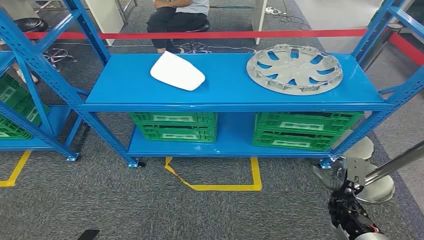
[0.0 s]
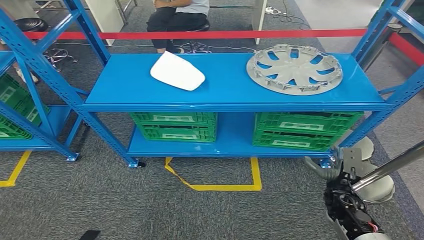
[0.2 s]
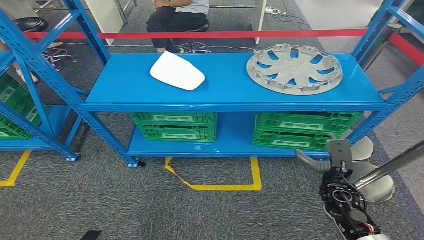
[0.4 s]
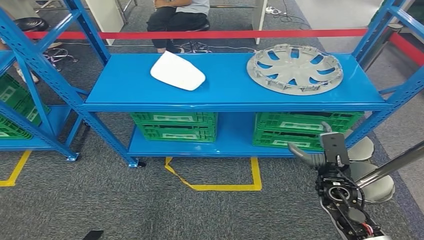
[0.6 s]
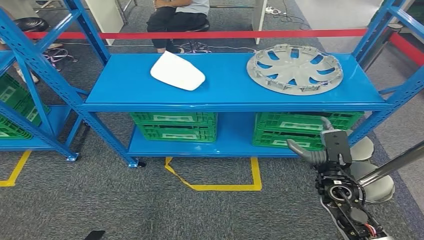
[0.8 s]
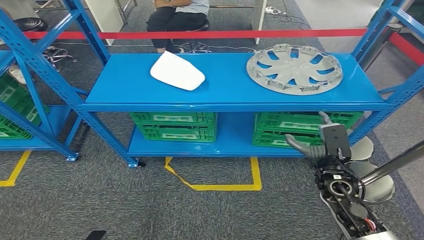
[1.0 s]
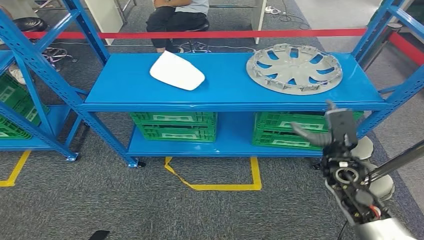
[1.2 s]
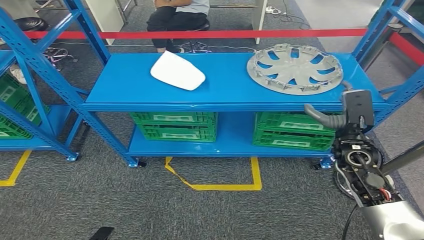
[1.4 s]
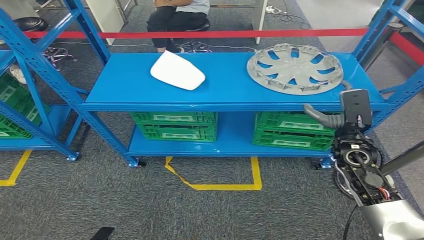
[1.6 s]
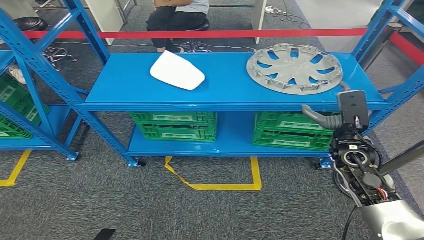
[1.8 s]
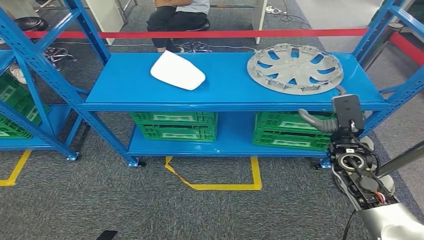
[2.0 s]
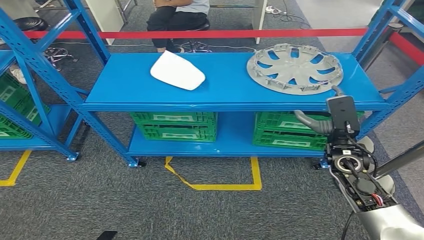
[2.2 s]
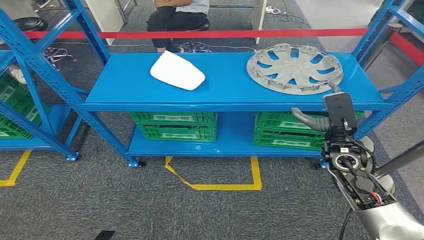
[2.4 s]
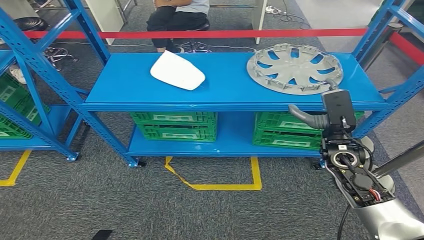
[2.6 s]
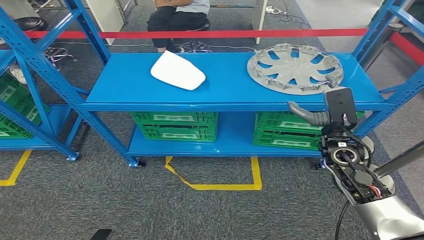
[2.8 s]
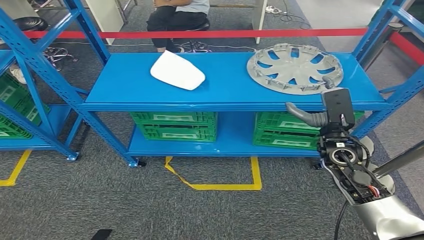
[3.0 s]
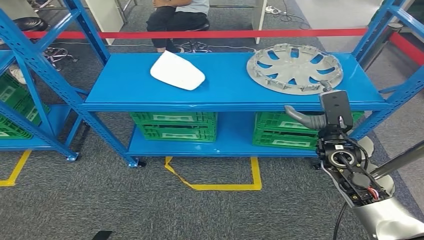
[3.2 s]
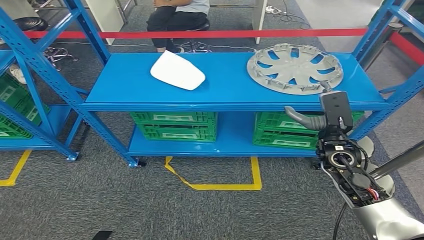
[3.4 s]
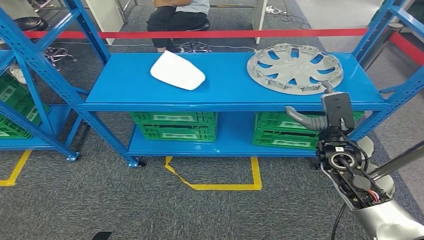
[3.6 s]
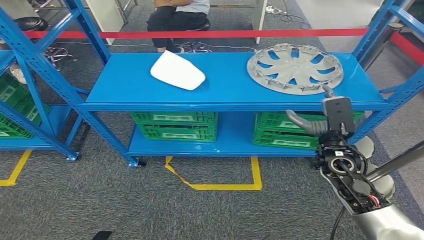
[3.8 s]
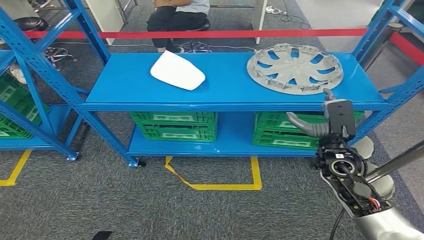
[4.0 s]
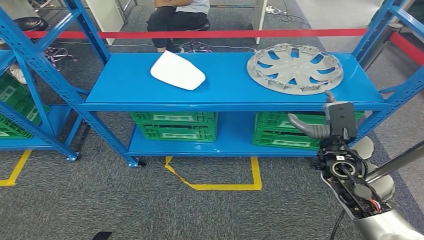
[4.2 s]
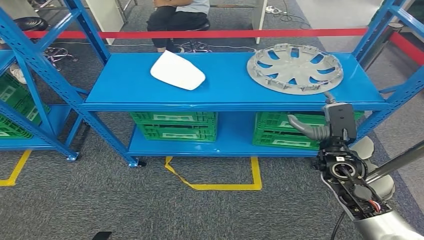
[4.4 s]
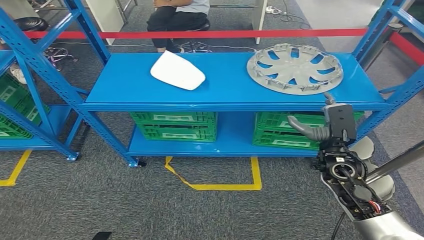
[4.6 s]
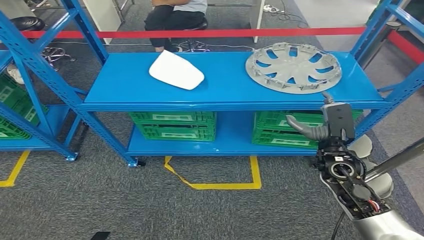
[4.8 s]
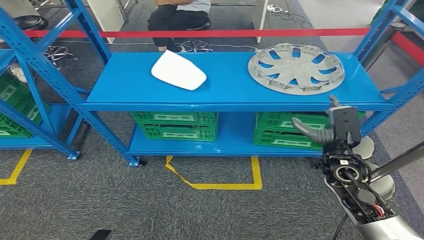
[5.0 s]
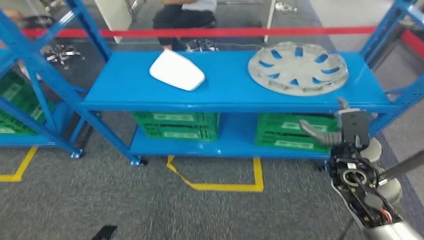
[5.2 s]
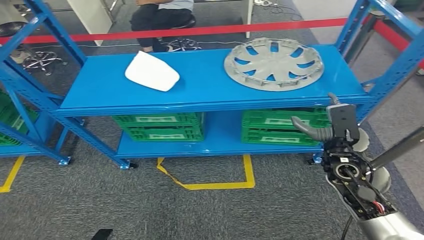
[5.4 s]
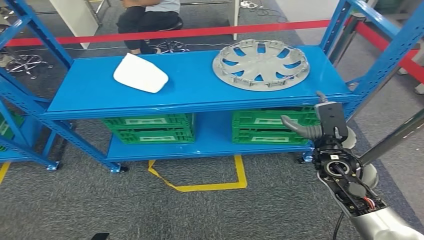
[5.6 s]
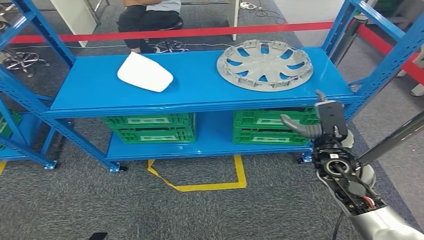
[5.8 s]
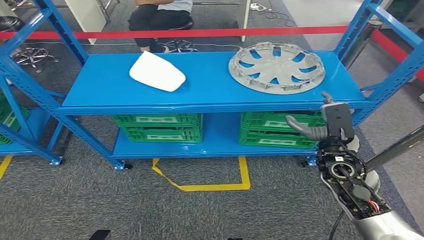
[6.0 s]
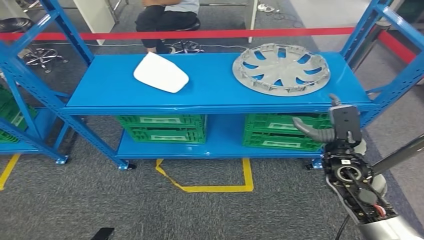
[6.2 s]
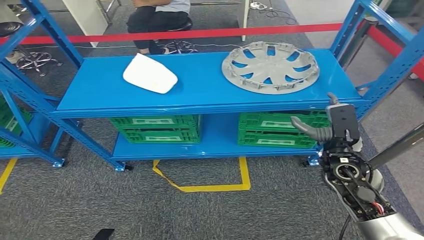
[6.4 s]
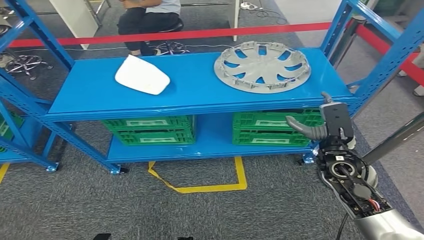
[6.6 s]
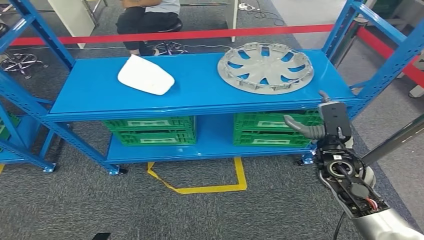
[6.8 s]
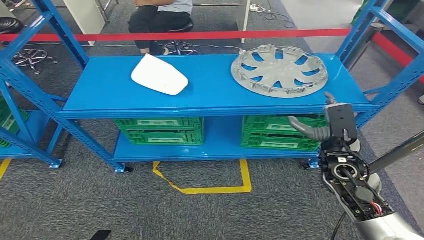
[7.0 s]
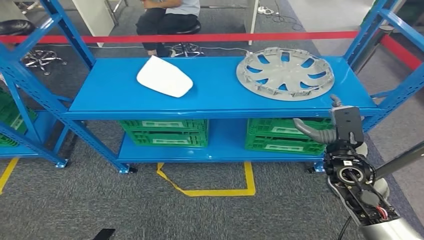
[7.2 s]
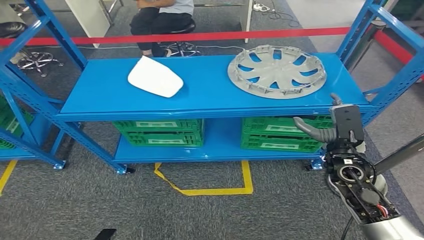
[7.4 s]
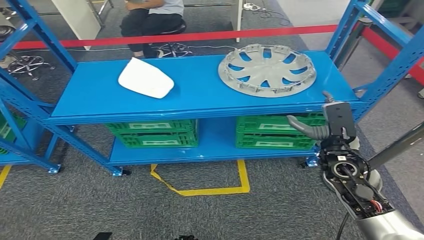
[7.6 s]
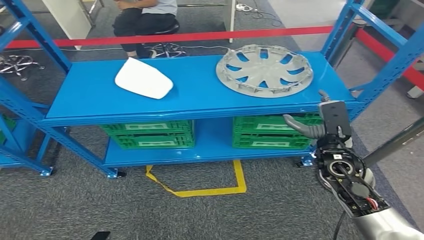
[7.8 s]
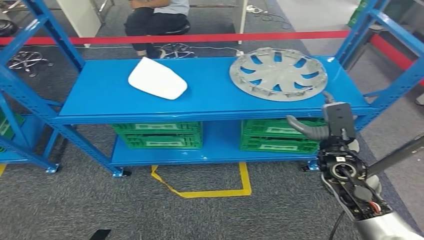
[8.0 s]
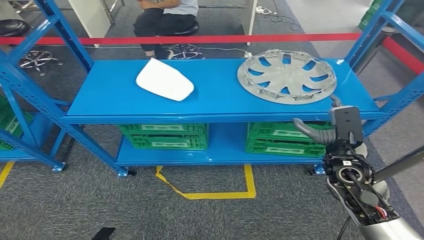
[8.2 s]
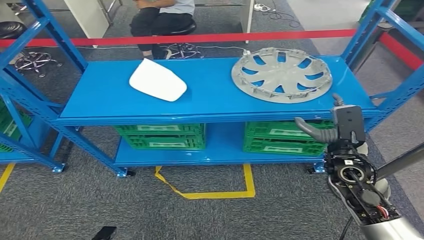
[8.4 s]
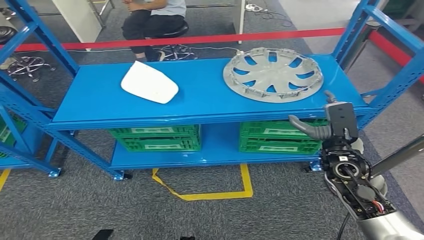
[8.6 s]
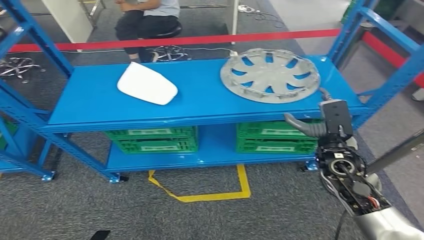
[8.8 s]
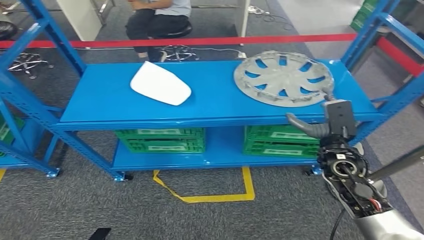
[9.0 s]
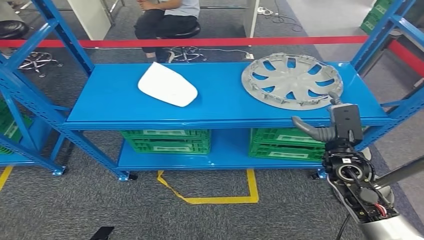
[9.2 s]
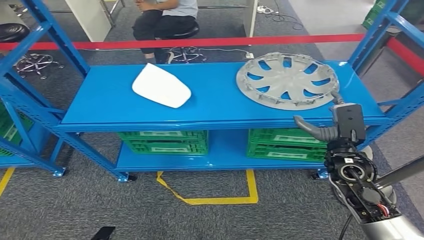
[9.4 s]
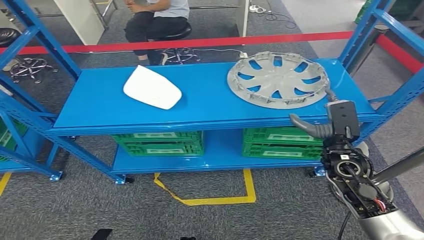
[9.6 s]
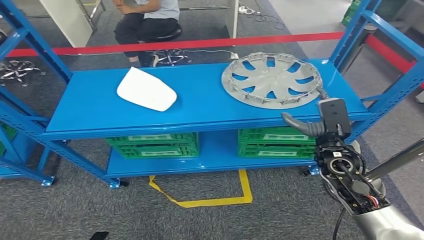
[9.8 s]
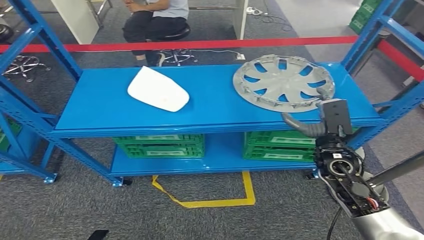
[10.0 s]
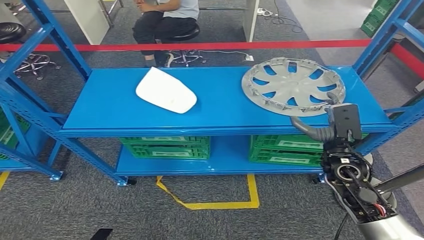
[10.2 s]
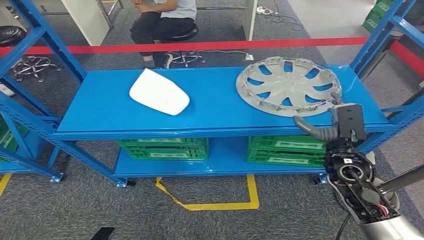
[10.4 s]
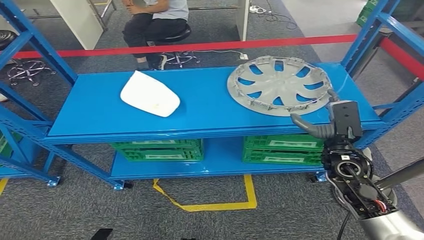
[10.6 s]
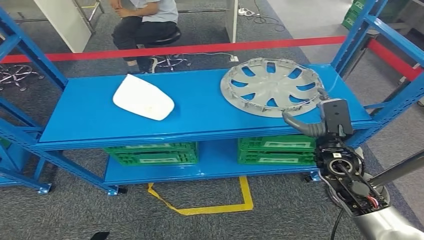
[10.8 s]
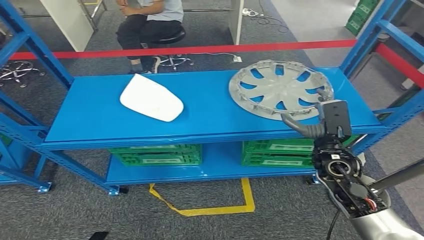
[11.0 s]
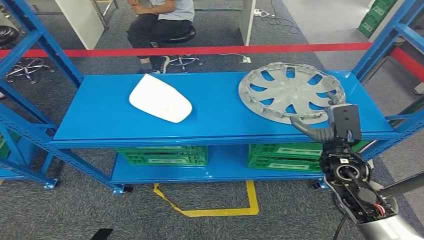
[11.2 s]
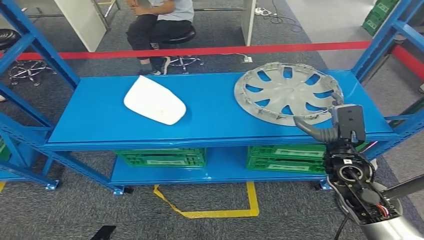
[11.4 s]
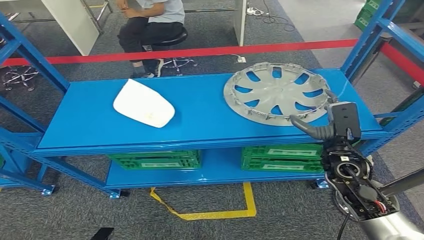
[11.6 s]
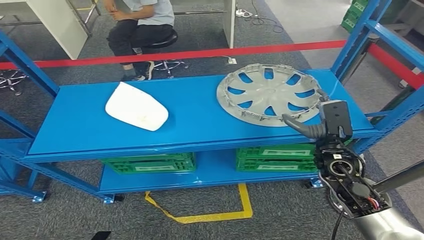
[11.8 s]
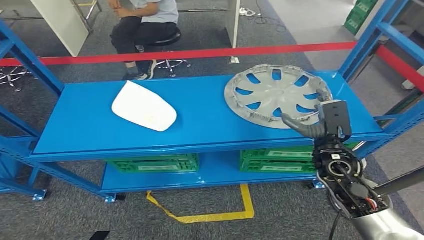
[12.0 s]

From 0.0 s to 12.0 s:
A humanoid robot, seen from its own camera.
From 1.6 s to 4.4 s: The hands make only small movements.

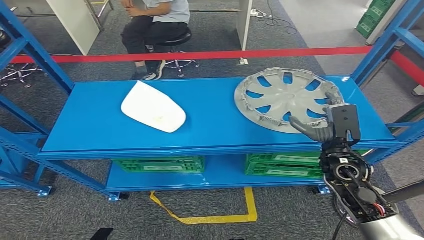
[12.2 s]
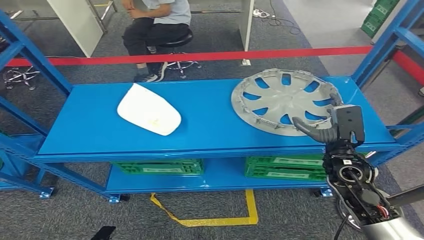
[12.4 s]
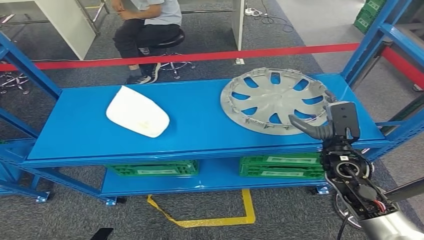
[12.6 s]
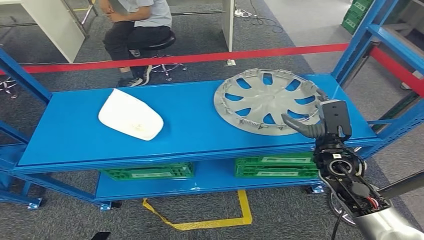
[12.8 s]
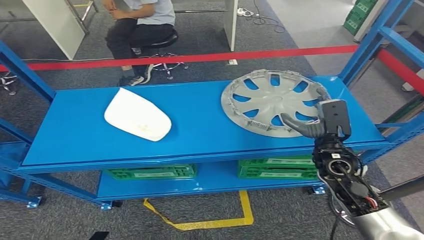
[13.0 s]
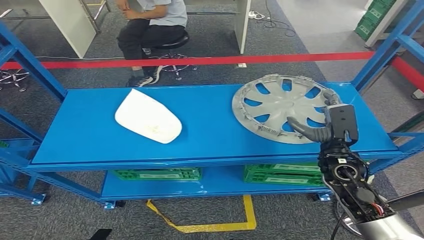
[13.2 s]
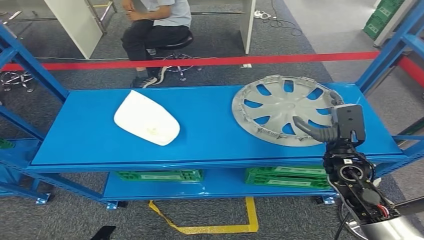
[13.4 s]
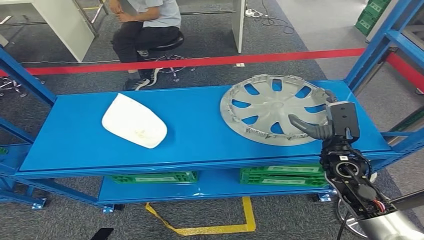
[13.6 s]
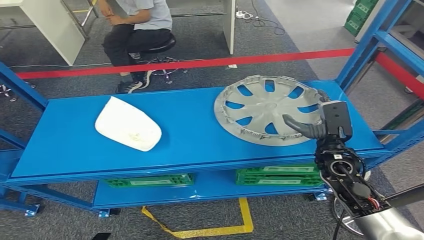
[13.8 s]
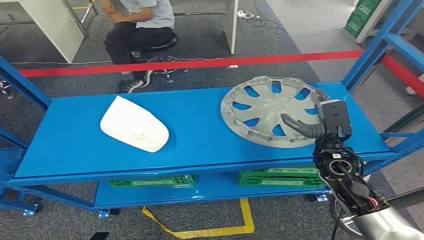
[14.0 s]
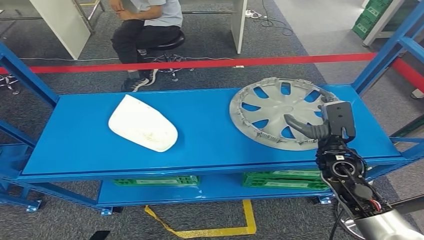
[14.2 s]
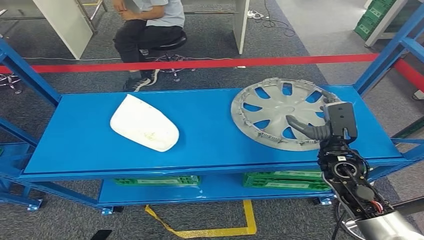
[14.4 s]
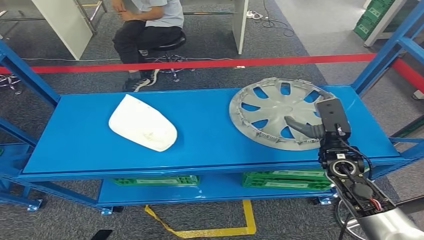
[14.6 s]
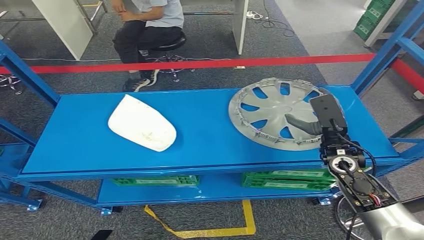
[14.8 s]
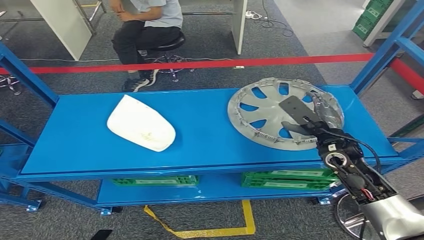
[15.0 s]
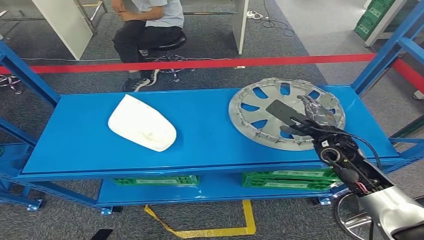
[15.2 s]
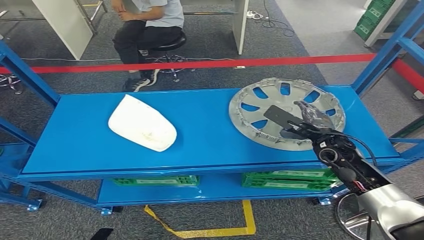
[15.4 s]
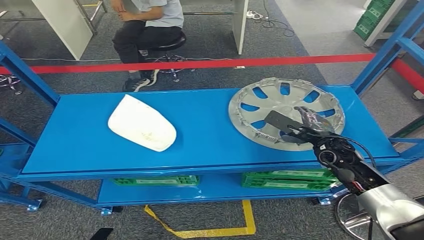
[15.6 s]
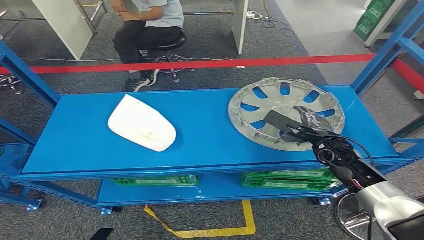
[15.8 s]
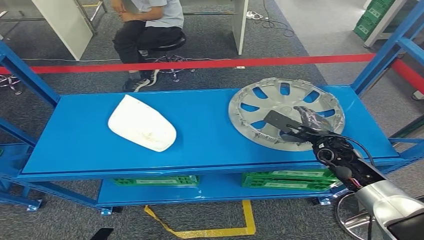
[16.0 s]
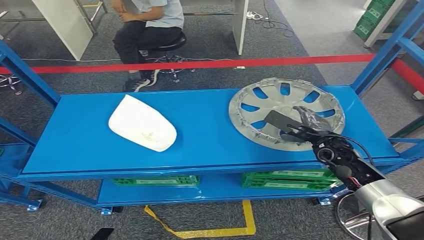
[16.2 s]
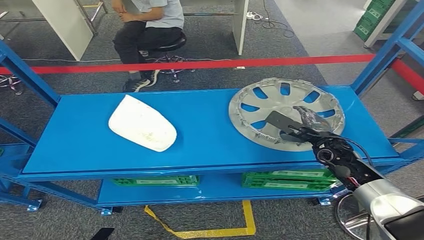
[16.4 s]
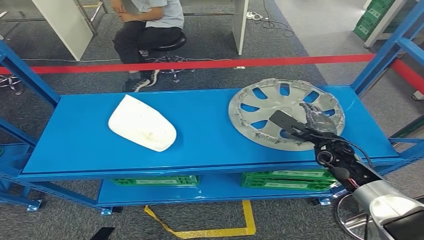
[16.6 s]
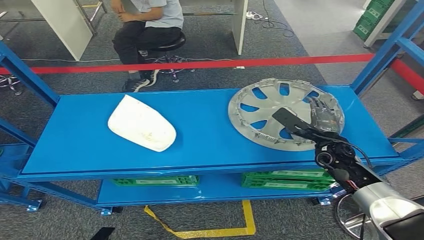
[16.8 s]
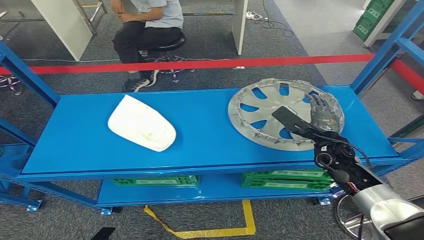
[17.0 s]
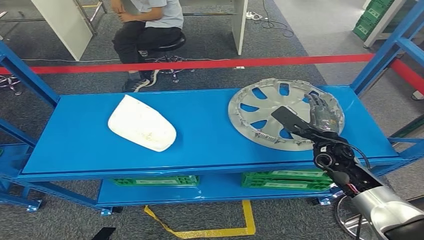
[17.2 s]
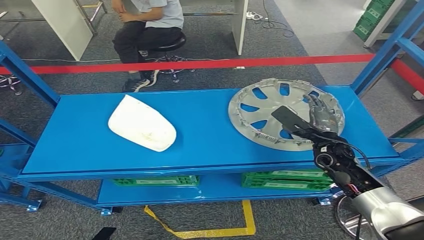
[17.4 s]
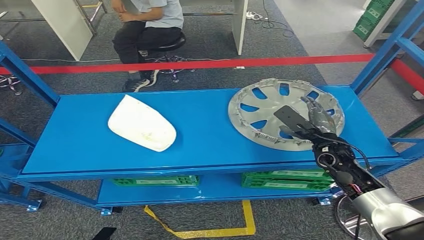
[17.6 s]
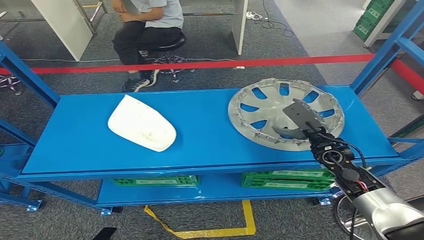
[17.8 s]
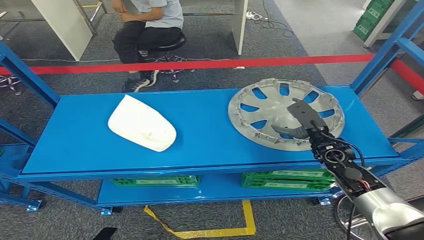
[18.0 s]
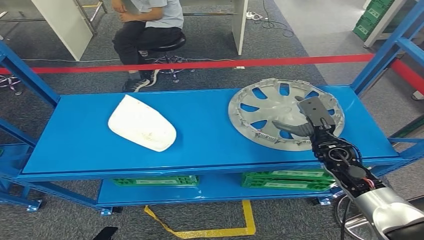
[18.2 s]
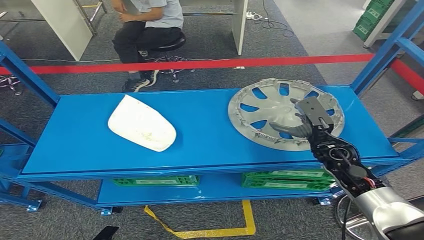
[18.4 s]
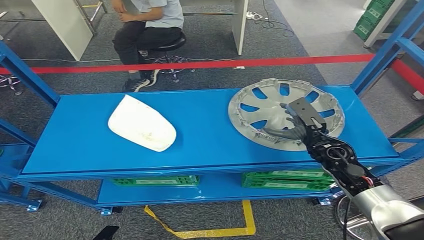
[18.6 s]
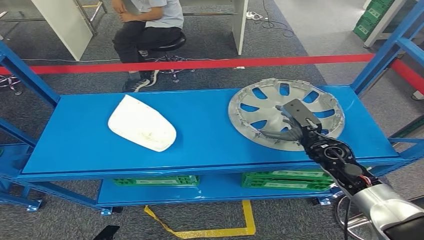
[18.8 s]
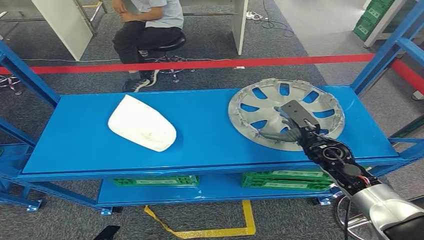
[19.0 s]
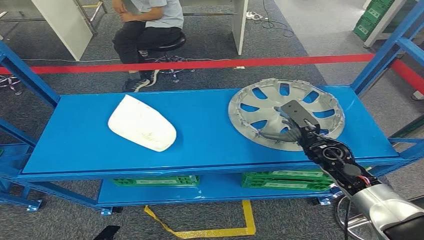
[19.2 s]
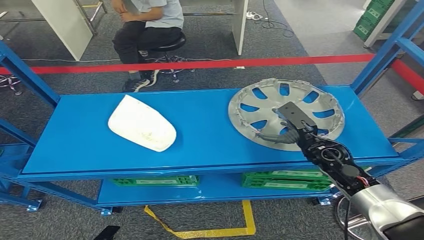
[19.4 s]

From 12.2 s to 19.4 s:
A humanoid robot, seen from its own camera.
From 15.0 s to 16.6 s: The right hand travels downward by approximately 5 cm.
From 18.0 s to 19.4 s: The hands make only small movements.
